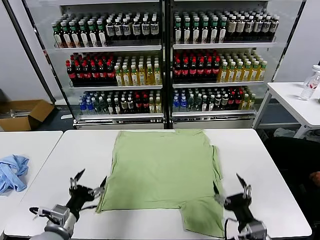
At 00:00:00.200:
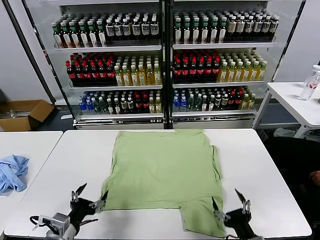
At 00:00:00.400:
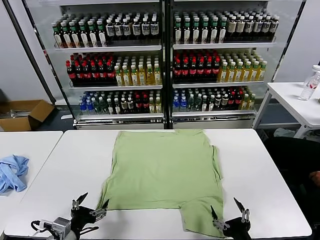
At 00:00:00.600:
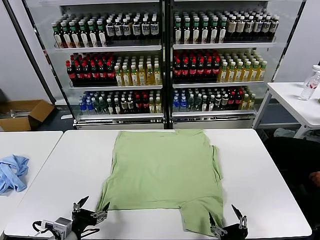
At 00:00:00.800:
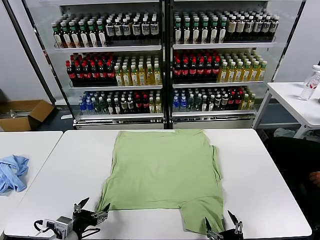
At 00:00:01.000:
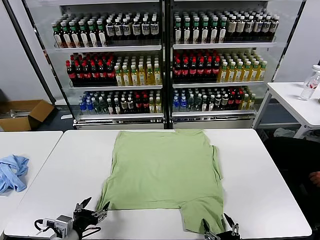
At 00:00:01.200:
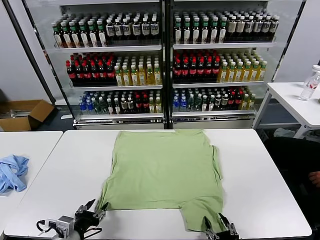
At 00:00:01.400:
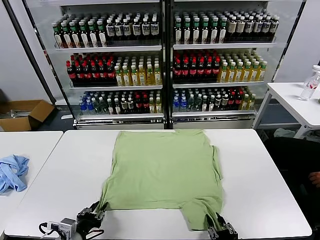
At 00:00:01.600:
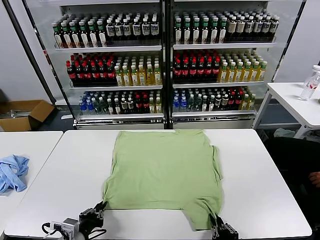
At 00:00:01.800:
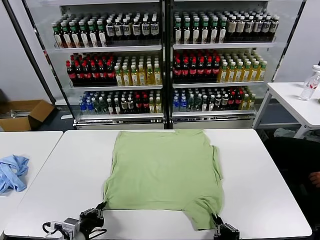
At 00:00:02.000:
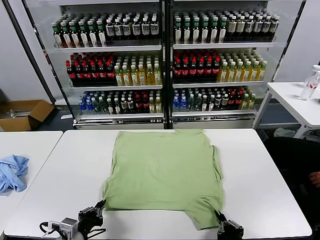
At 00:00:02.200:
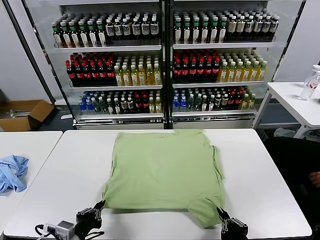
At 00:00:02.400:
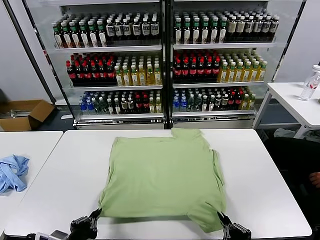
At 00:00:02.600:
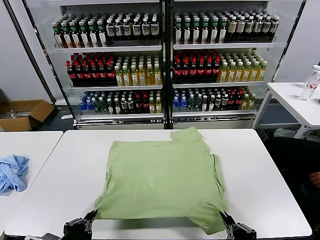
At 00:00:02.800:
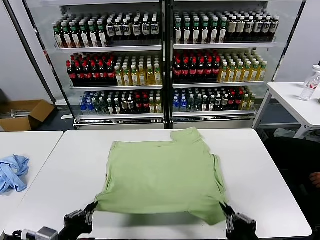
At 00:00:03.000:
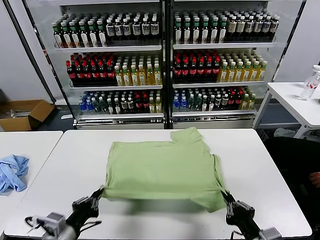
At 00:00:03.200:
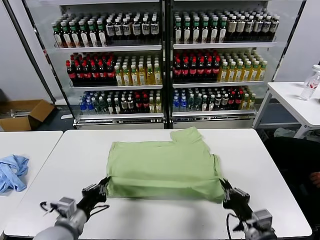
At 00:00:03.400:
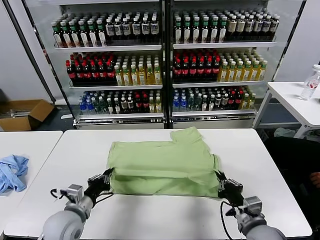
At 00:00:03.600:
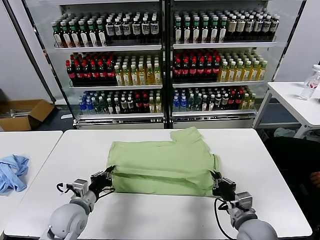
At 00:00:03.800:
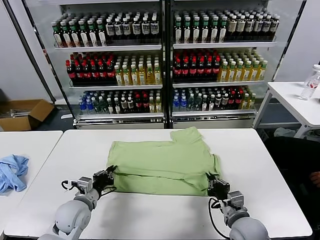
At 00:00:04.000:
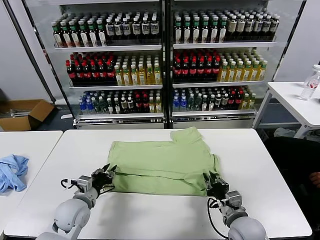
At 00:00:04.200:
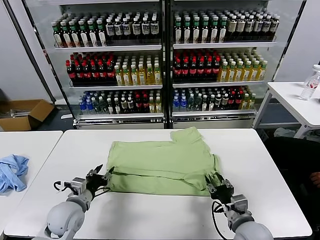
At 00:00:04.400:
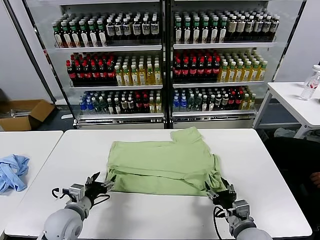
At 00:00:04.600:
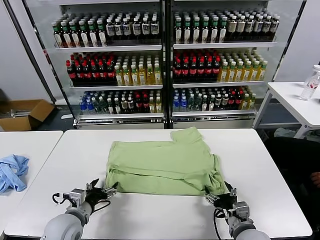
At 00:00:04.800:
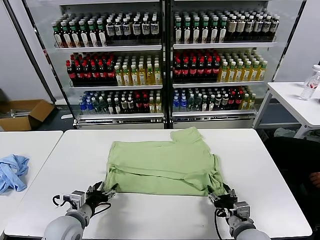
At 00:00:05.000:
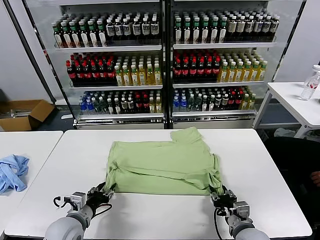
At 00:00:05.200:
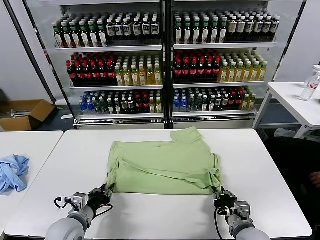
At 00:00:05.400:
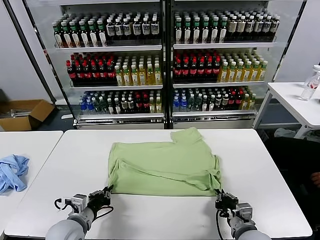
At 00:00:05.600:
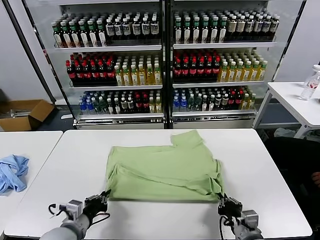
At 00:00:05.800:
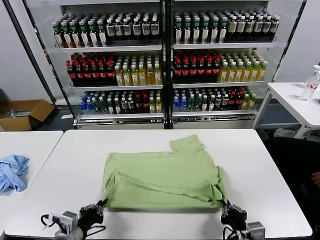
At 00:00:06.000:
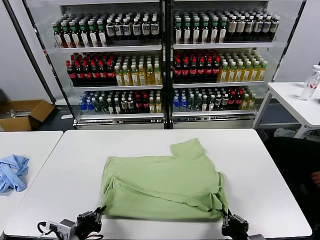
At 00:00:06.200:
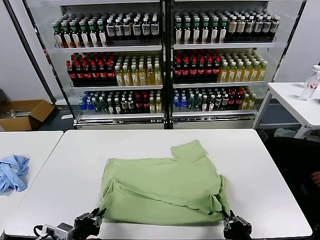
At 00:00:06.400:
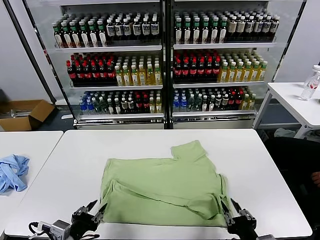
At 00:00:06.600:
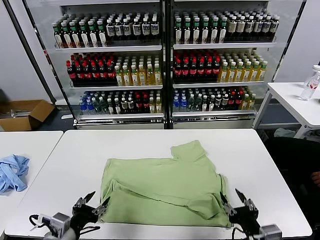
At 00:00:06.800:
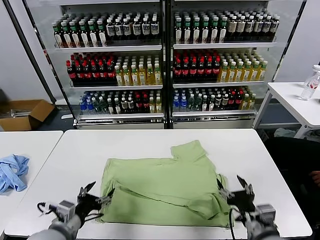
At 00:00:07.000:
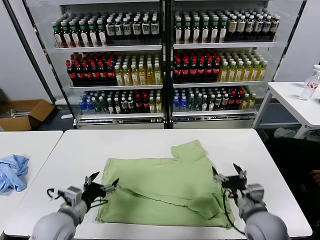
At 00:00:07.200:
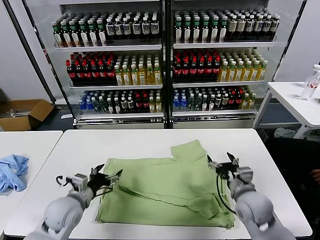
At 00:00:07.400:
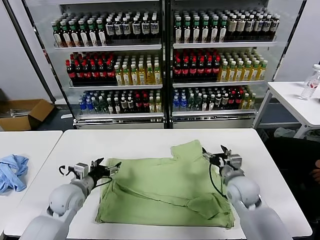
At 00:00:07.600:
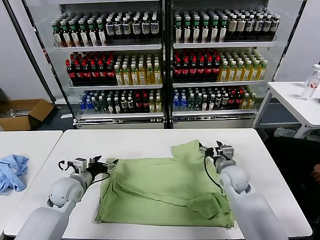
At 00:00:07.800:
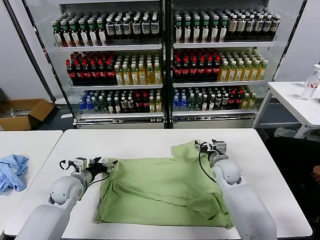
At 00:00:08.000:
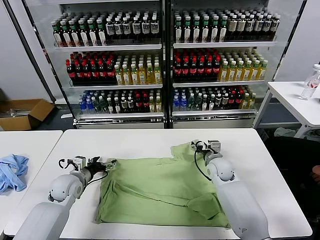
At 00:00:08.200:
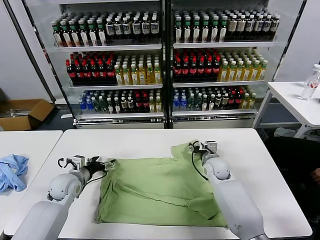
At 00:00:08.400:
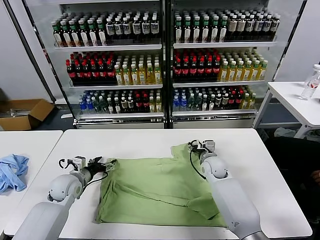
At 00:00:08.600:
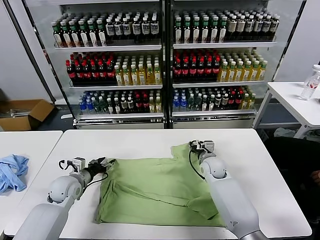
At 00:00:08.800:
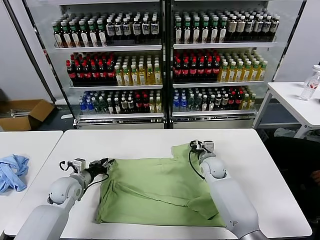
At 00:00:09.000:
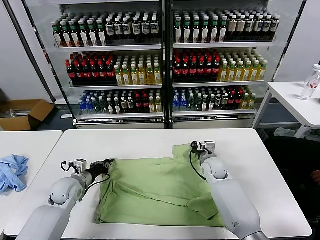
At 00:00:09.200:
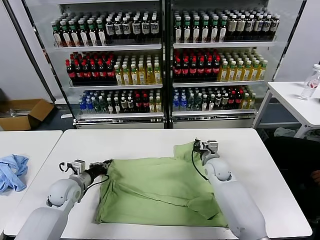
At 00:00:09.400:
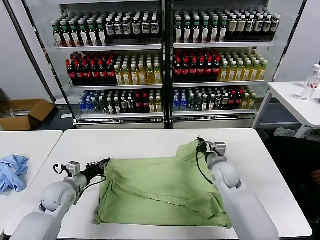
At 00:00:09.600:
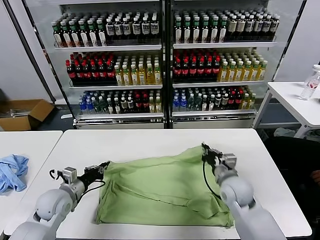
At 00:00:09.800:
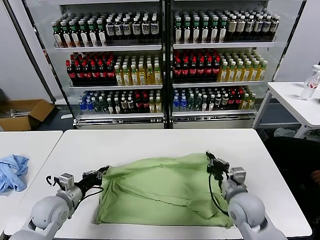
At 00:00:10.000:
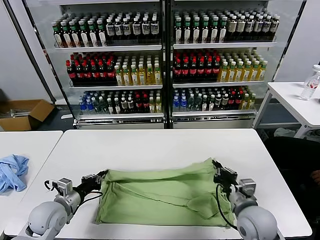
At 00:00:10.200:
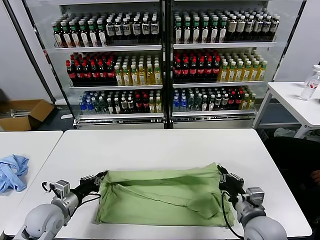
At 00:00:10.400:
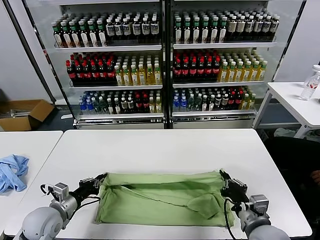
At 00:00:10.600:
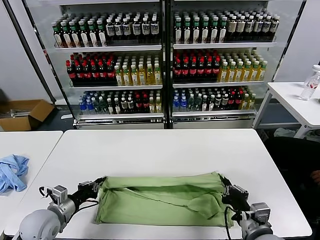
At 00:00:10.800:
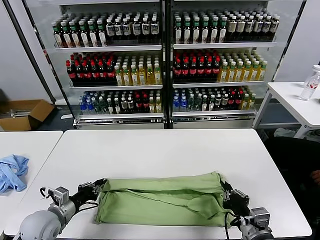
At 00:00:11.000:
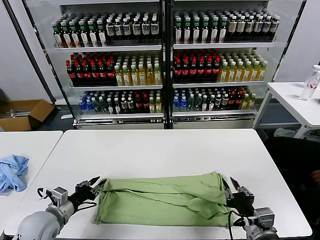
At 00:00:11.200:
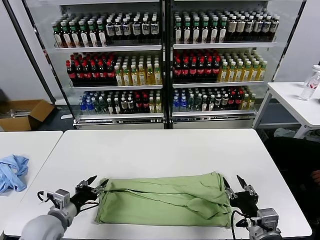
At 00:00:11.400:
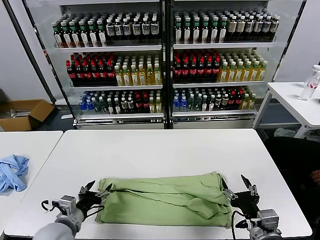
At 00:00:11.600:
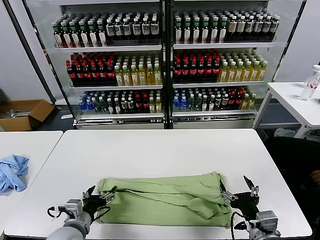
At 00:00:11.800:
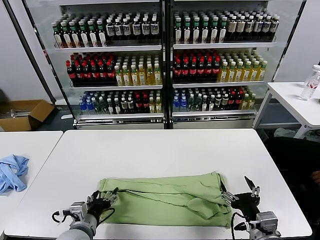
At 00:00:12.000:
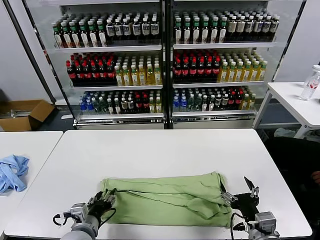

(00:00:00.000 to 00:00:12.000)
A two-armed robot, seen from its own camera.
Task of the whole recording: fold and organize the clothes.
Step, 00:00:00.000 - 00:00:01.600: use both grippers simultaneously to clamp the lower edge of the clothing fabric.
Step, 00:00:01.800 - 00:00:04.000: use both grippers to drag the lower edge of the fabric forward and fold it over the upper edge.
Step, 00:00:04.200 - 00:00:06.200: Drag the clothes downward with both gripper.
Step, 00:00:06.600 - 00:00:09.000: use both grippers simultaneously to clamp the upper edge of the clothing fabric.
Step, 00:00:09.200 - 00:00:10.800: use both grippers to drag the upper edge of the fabric backward and fold it over the lower edge.
00:00:01.600 - 00:00:03.000: The grippers both shift upward by roughly 10 cm.
00:00:03.000 - 00:00:04.400: Both grippers travel together forward and downward, some 10 cm. The right gripper opens up; the left gripper opens.
00:00:04.400 - 00:00:06.000: Both grippers move backward, roughly 10 cm. The left gripper closes up, while the right gripper closes its fingers.
00:00:06.000 - 00:00:07.600: The grippers both shift forward by about 25 cm. The left gripper opens its fingers. The right gripper opens its fingers.
00:00:07.600 - 00:00:09.000: The right gripper shifts about 5 cm forward, and closes up. The left gripper closes its fingers.
00:00:09.000 - 00:00:10.400: The right gripper heads backward, covering some 30 cm. The left gripper goes some 10 cm backward.
00:00:10.400 - 00:00:12.000: The right gripper opens its fingers. The left gripper heads to the right and backward, covering roughly 15 cm, and opens its fingers.

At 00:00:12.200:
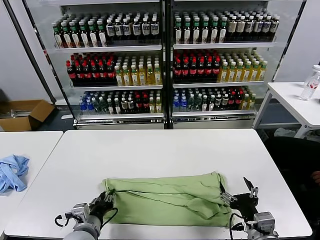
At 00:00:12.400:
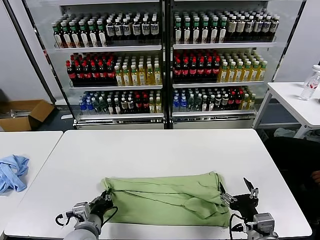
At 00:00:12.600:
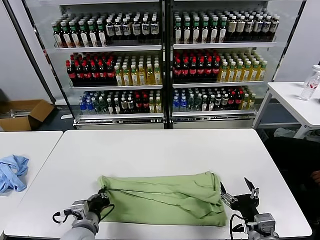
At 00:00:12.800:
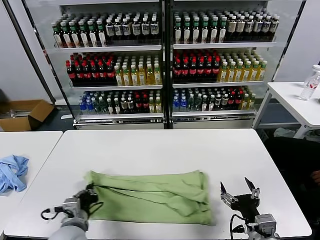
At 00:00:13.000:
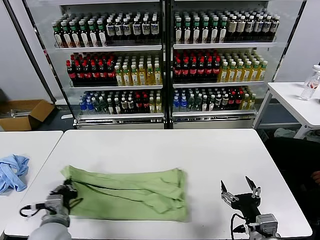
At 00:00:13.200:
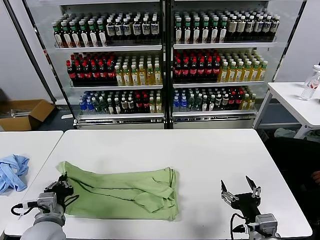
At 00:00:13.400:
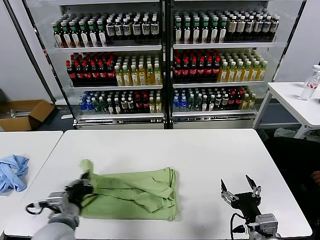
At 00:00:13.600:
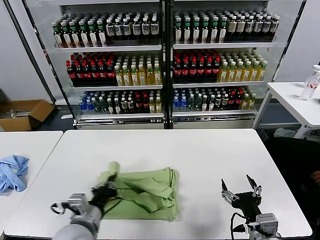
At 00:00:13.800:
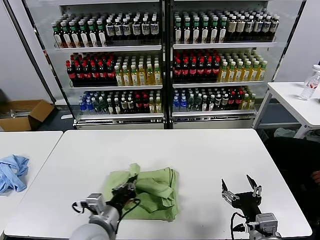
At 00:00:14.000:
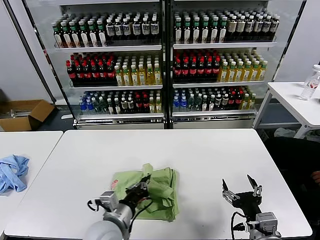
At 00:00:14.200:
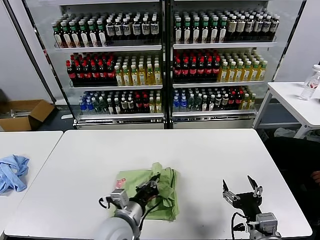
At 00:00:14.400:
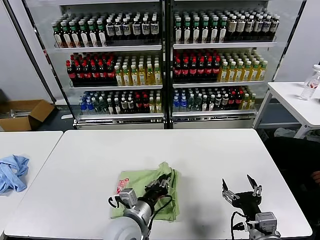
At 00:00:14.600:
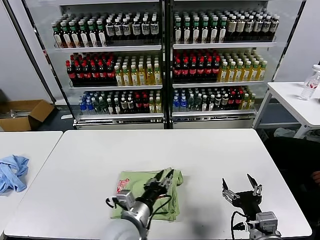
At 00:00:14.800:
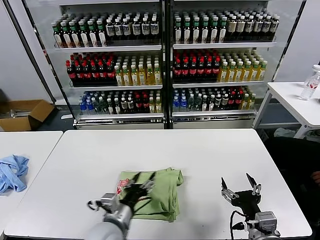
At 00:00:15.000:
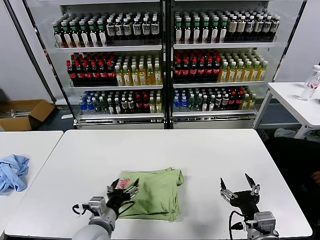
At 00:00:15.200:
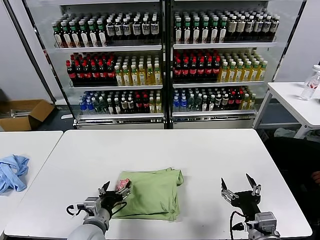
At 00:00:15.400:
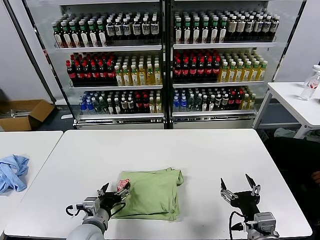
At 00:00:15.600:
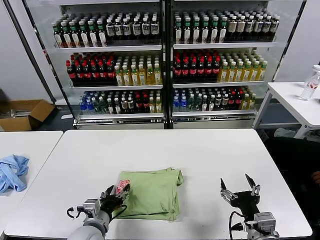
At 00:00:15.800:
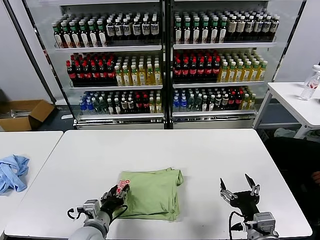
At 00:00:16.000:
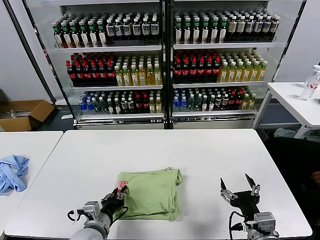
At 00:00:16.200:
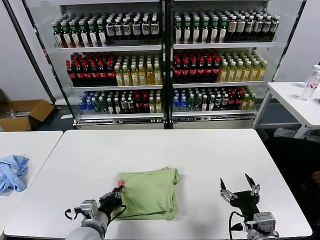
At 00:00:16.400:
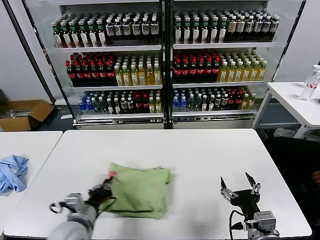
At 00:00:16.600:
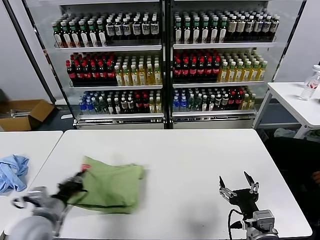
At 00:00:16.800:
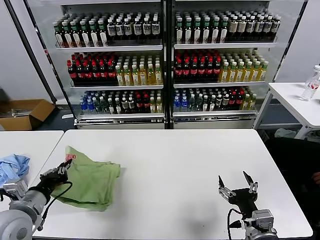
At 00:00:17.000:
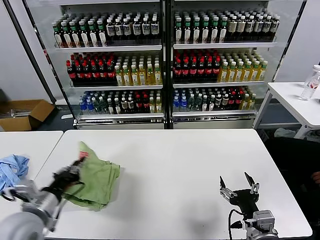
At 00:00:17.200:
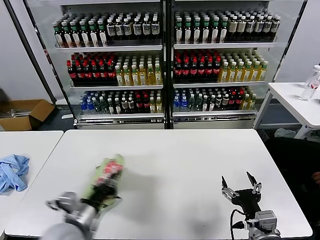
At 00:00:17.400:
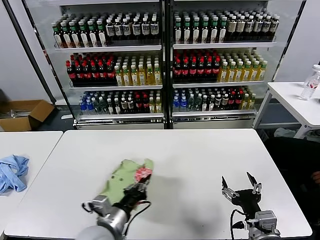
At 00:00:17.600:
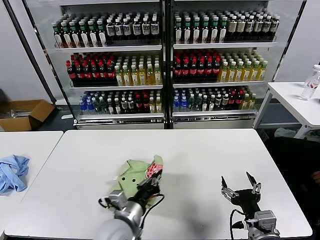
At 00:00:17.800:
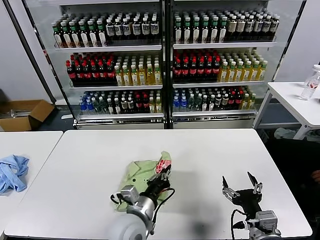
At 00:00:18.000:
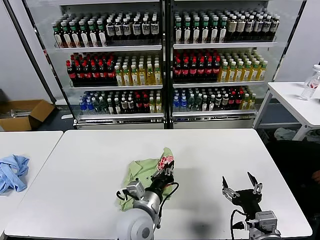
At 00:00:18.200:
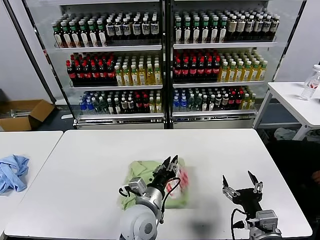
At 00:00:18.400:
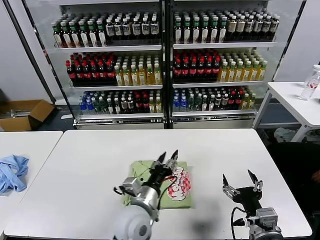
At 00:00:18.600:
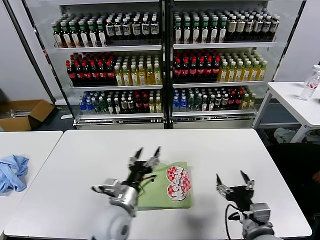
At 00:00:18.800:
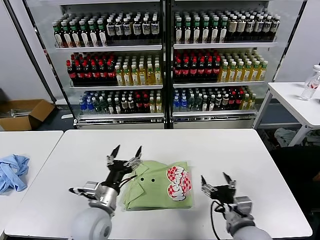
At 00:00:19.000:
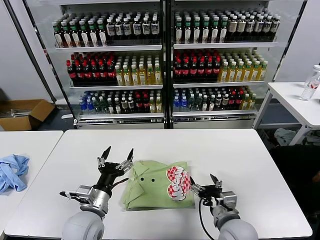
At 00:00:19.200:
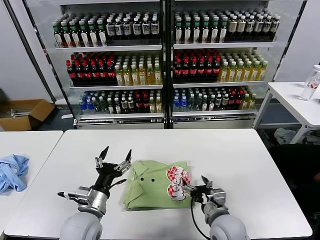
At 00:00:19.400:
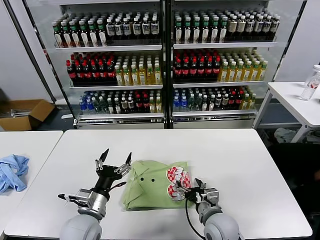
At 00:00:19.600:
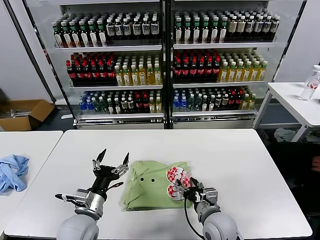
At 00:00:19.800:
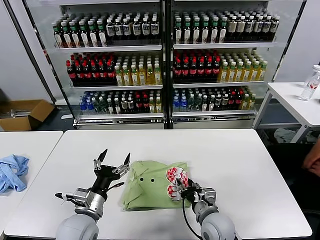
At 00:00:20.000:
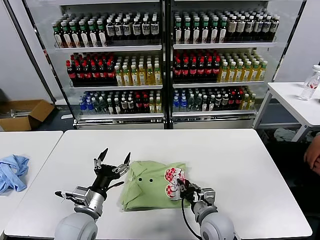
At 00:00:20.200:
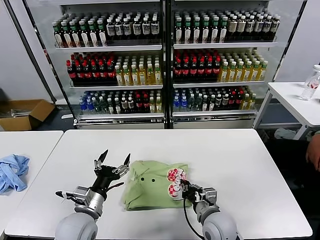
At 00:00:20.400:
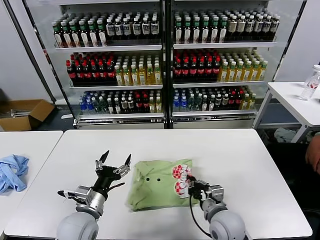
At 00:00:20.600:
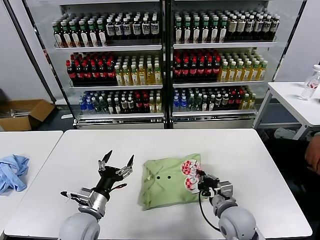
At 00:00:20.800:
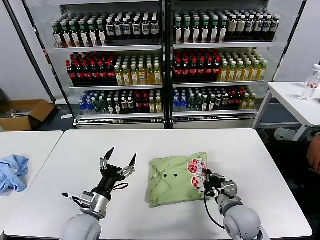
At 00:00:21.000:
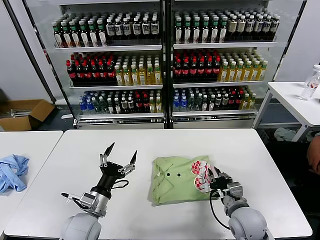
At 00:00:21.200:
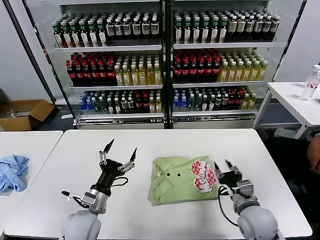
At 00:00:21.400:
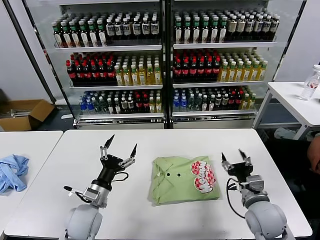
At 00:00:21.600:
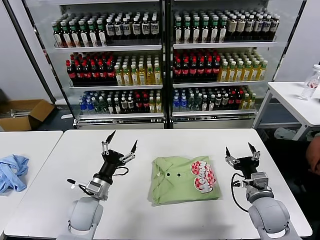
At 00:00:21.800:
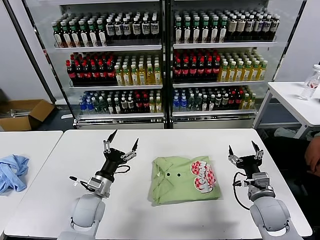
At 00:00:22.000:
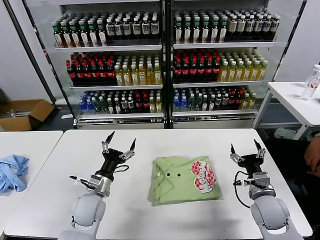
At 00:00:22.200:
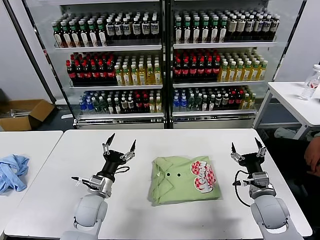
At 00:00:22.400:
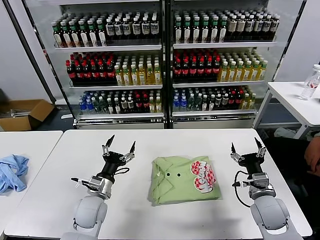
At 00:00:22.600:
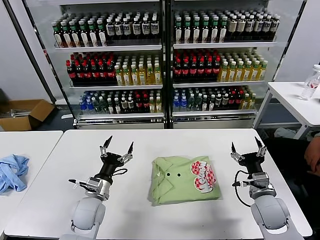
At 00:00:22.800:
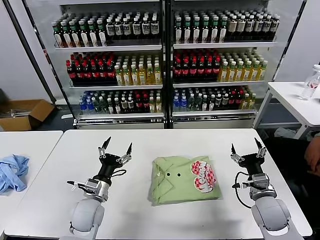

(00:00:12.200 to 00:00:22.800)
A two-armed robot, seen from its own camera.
Task of the whole recording: fold and organize the clothes.
Step, 00:00:12.600 - 00:00:14.400: use the left gripper to drag the left edge of the fabric to the left and folds it over the right edge.
Step, 00:00:14.600 - 00:00:18.200: Flip the folded clothes over with left gripper.
Step, 00:00:18.400 - 00:00:21.000: Drag the clothes to the center of the table.
00:00:12.200 - 00:00:13.800: The left gripper shifts some 5 cm upward, and closes.
00:00:13.800 - 00:00:15.200: The left gripper travels downward by some 5 cm, goes to the right and returns, some 10 cm each way, and opens its fingers.
00:00:15.200 - 00:00:16.800: The left gripper moves to the left and upward, about 20 cm, and closes.
00:00:16.800 - 00:00:18.200: The left gripper heads to the right, covering some 30 cm.
00:00:18.200 - 00:00:19.800: The left gripper moves to the left, roughly 15 cm, and opens up. Meanwhile the right gripper goes roughly 15 cm forward, to the left and downward.
00:00:19.800 - 00:00:21.200: The right gripper moves to the right, about 10 cm, and closes, then reopens.
00:00:21.200 - 00:00:22.800: The right gripper travels to the right by some 5 cm, and opens up. The left gripper is displaced forward by about 5 cm.
